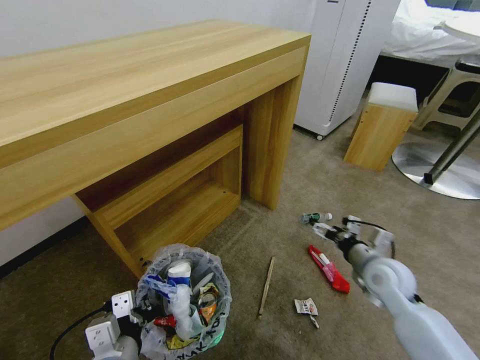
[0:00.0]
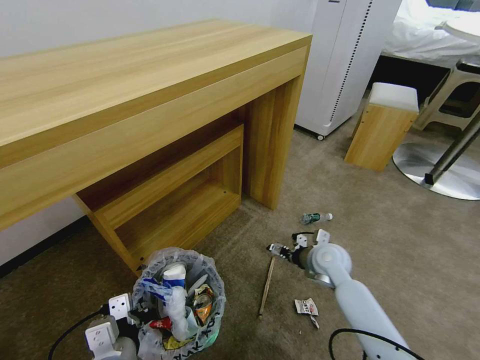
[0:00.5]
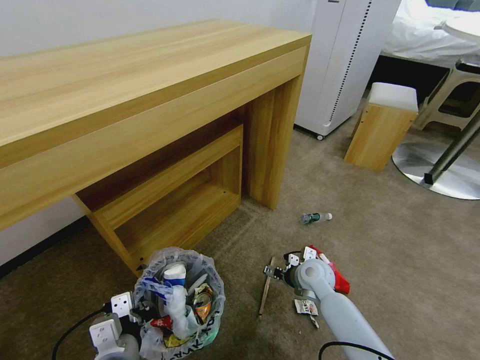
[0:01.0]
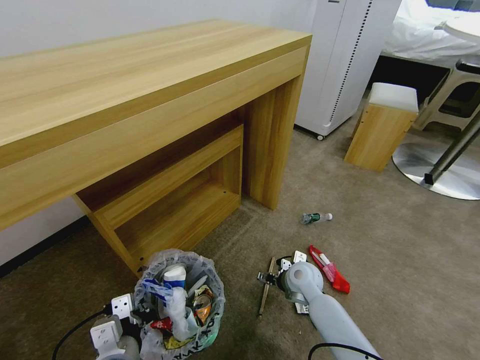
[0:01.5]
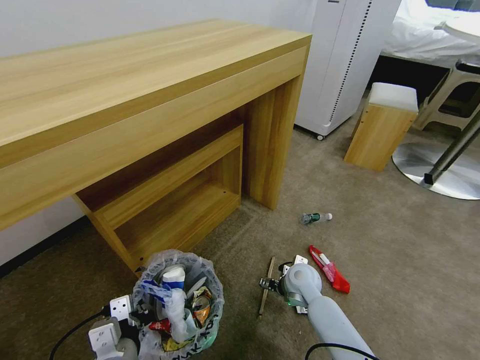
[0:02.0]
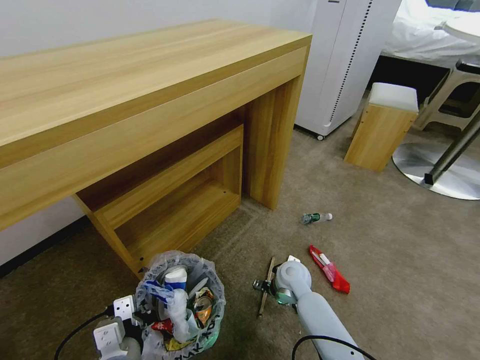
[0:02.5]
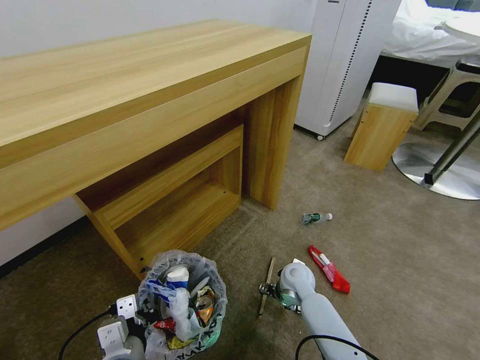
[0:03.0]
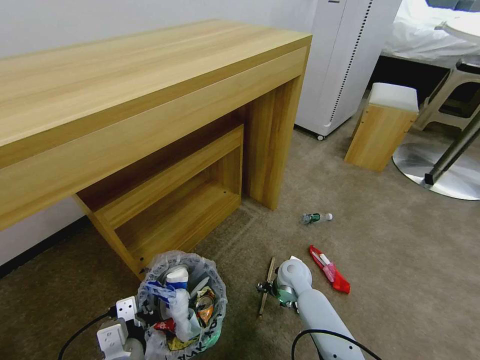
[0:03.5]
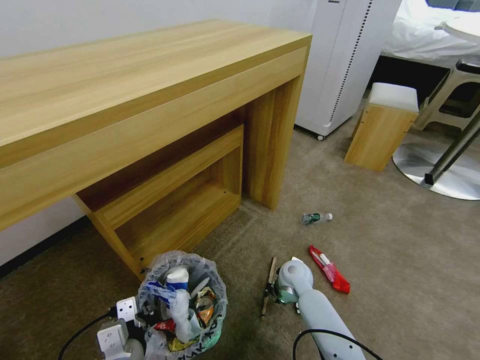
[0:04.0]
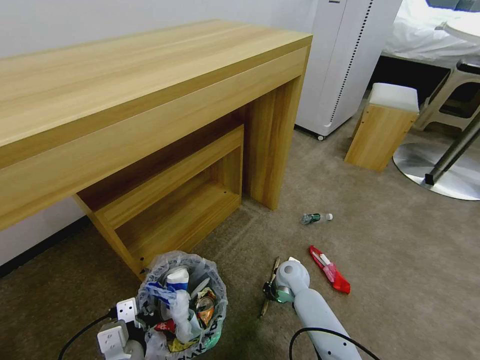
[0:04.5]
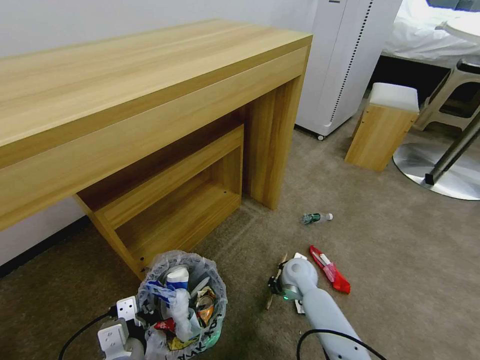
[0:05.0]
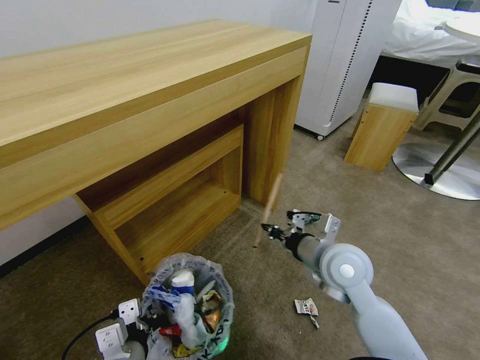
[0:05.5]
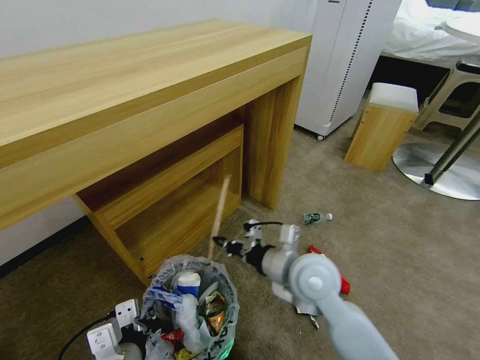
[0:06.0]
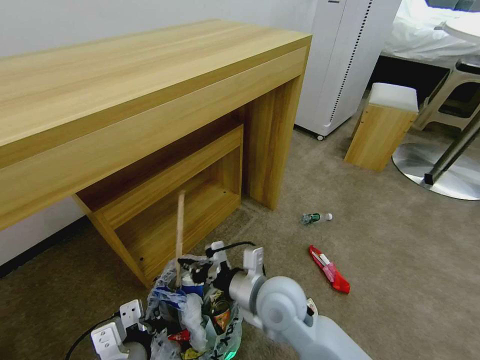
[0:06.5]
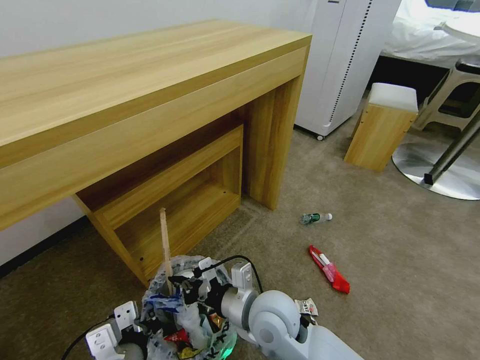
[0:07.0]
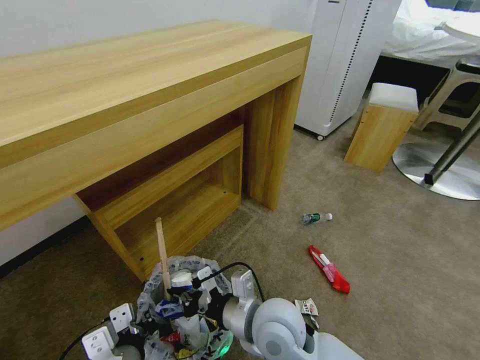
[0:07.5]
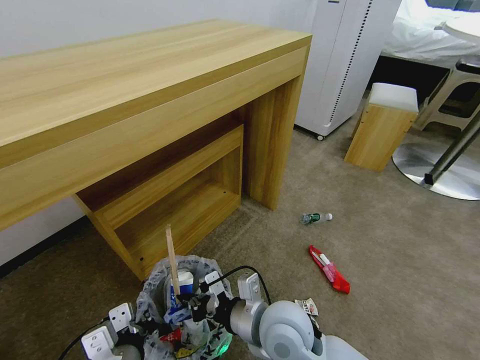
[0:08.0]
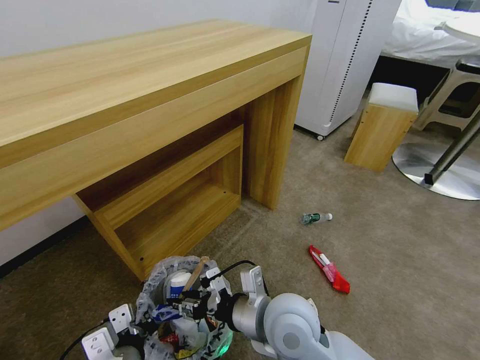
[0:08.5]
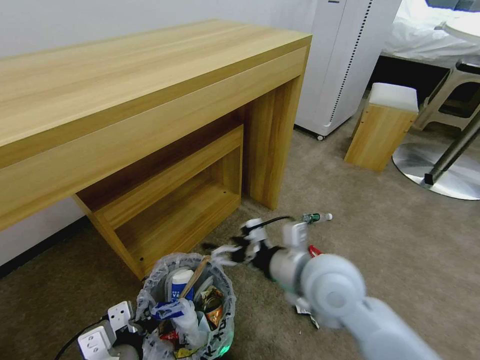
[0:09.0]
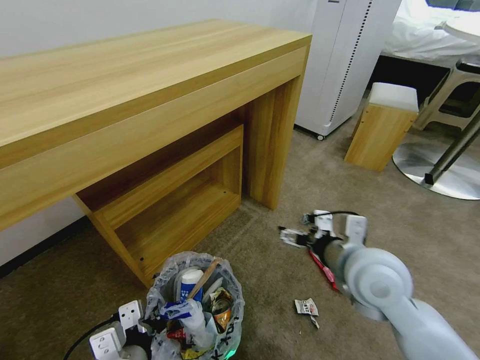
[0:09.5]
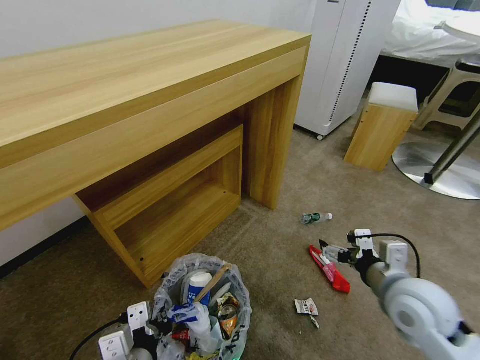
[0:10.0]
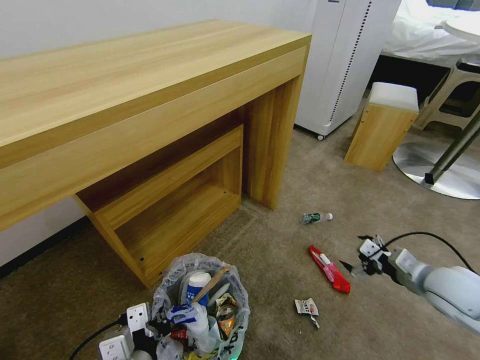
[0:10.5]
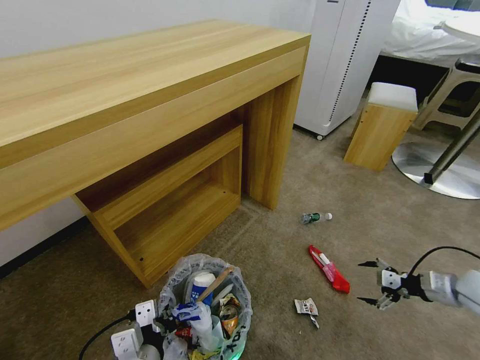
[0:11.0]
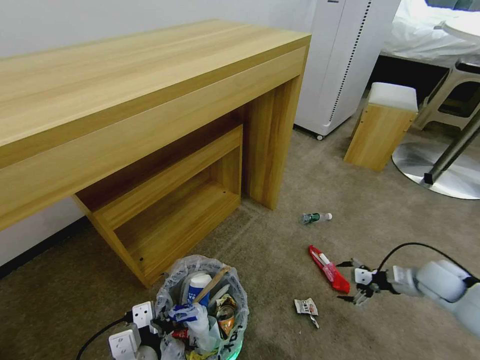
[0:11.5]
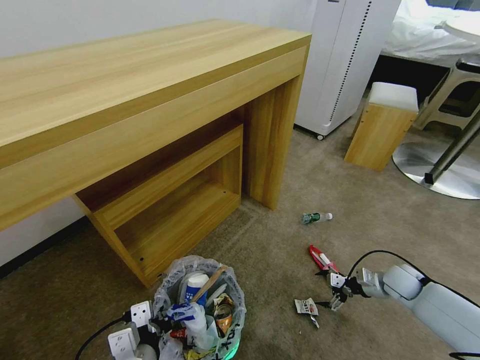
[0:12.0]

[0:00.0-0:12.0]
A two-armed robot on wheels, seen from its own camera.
Task of the whole recording: Pick up the trash bin and place the garbage on the floor into it.
0:00.0 to 0:02.0: The right gripper moves to the left and downward, about 20 cm.
0:02.0 to 0:04.0: The right gripper closes up.
0:04.0 to 0:06.0: The right gripper travels upward and backward by approximately 20 cm.
0:06.0 to 0:08.0: The right gripper shifts some 10 cm backward and to the left.
0:08.0 to 0:10.0: The right gripper is displaced to the right by roughly 25 cm, and opens its fingers.
0:10.0 to 0:12.0: The right gripper heads downward, to the right and forward, covering some 30 cm.

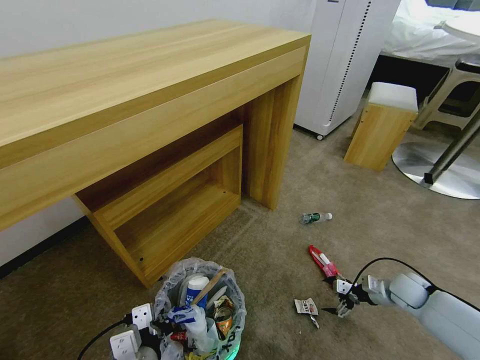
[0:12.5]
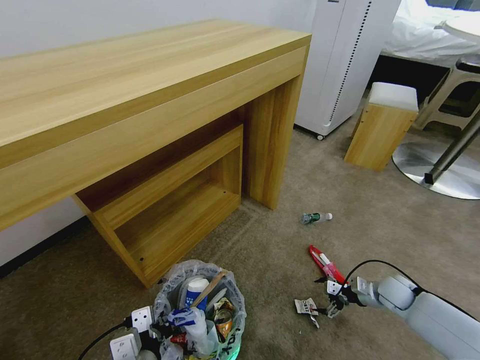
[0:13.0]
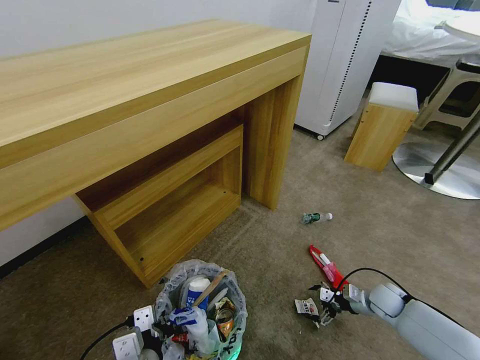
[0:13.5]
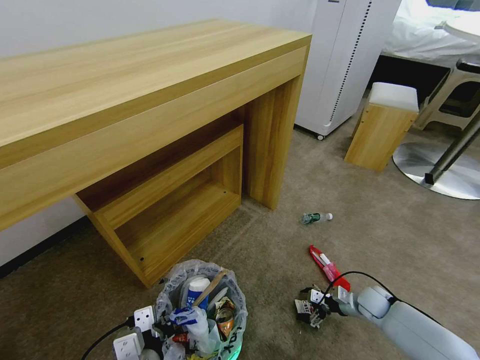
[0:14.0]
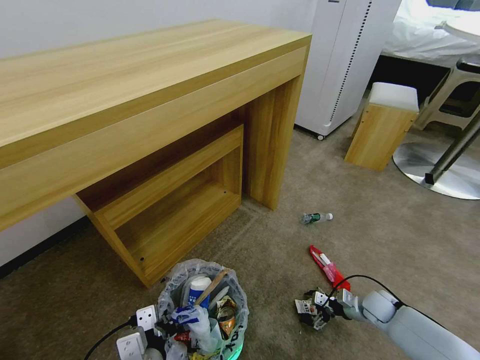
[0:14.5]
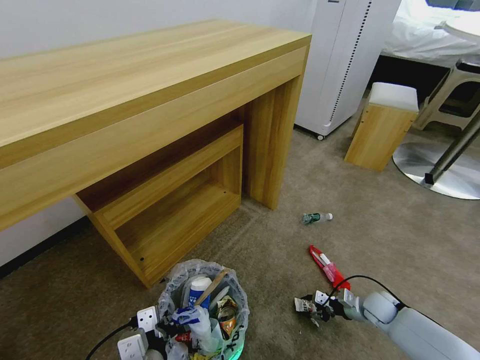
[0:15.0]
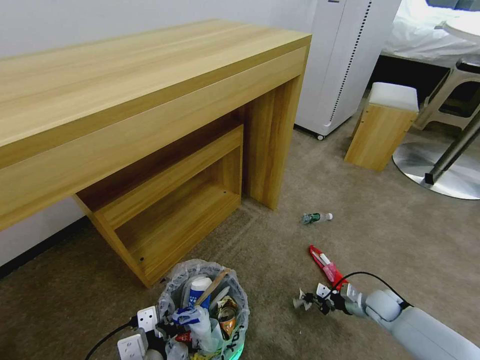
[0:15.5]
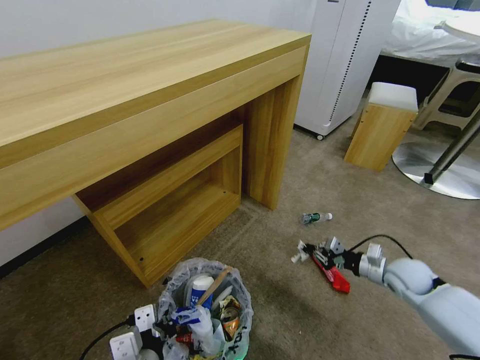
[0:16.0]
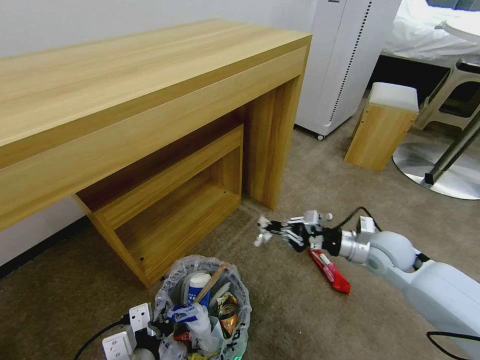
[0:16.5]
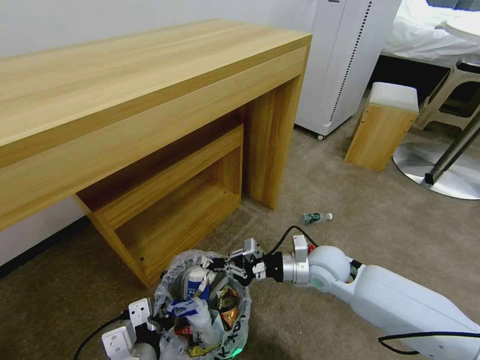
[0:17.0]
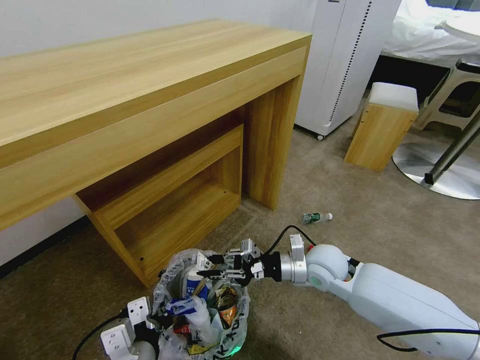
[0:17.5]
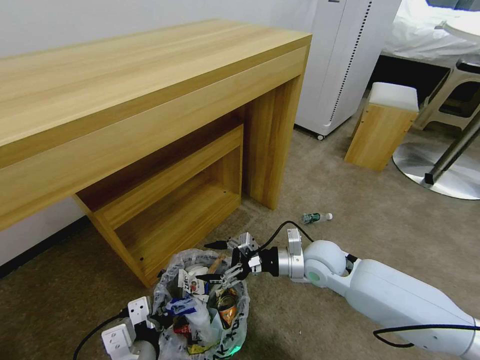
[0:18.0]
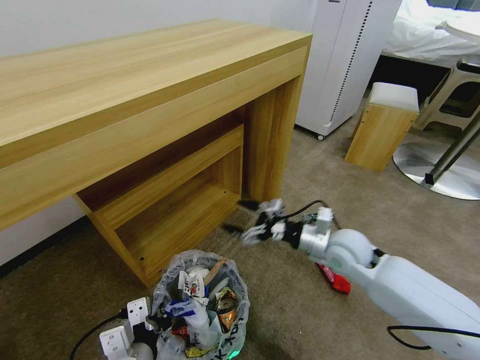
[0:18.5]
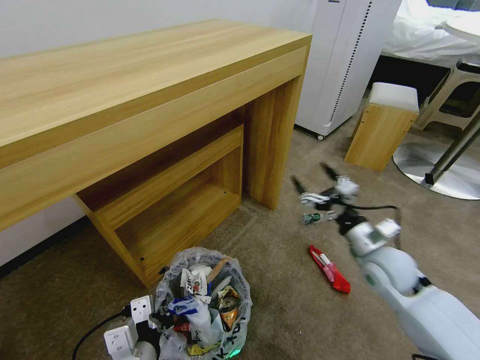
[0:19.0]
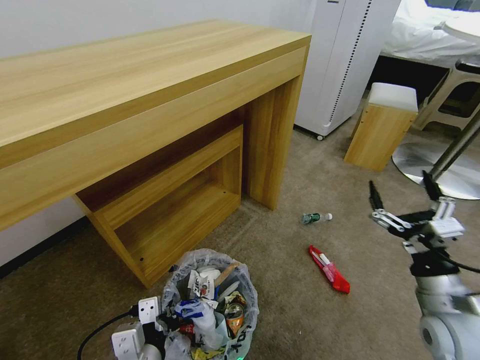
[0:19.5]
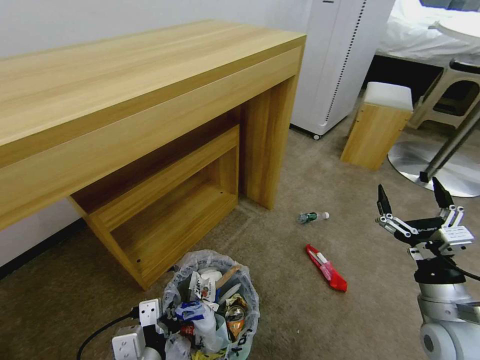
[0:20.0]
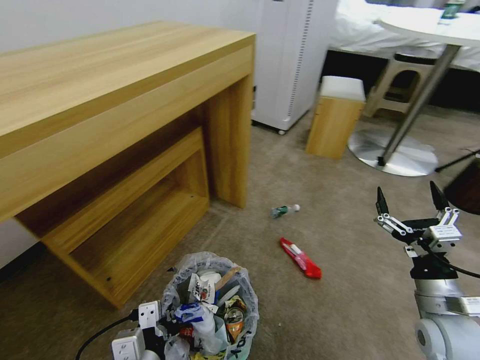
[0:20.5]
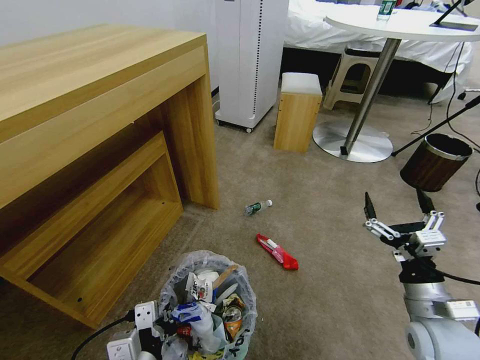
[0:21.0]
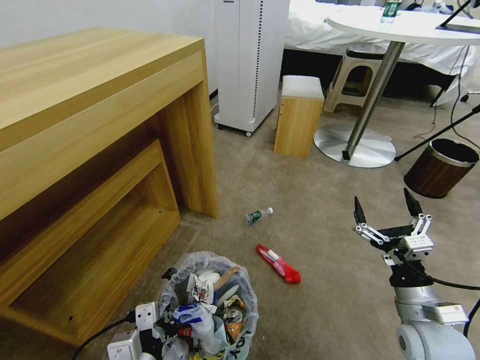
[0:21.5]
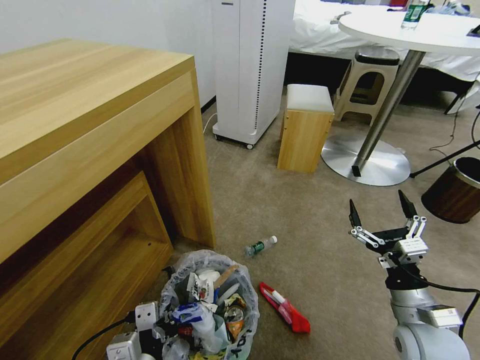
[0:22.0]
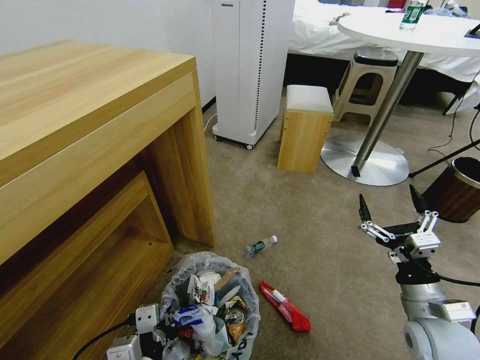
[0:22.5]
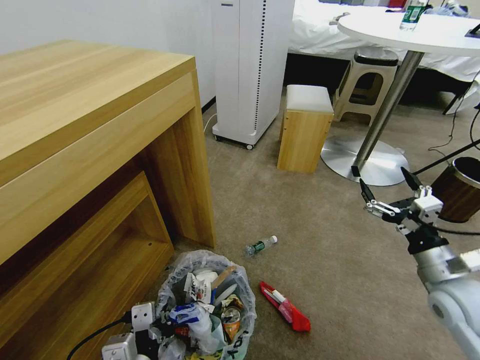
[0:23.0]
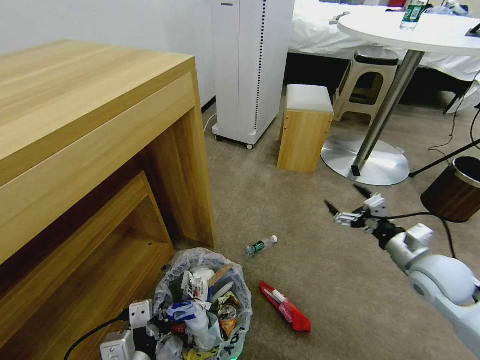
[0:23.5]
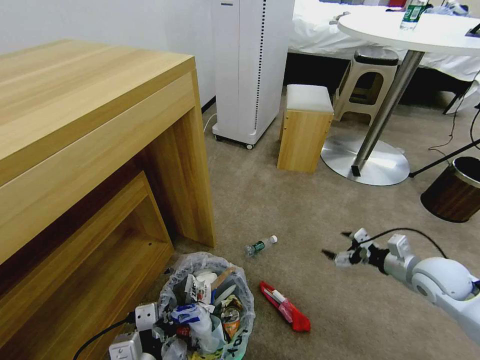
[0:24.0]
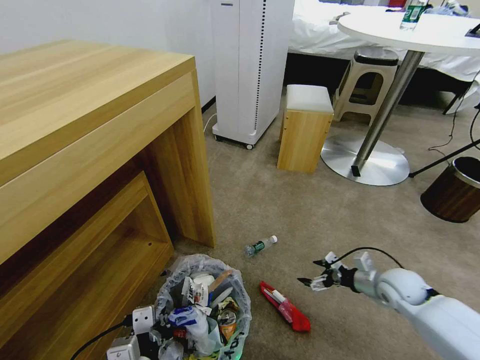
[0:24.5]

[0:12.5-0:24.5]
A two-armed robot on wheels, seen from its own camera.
Task of the whole recording: Pick up the trash bin and place the garbage on the floor into it.
0:12.5 to 0:14.5: The right gripper heads downward and to the left, covering approximately 10 cm.
0:14.5 to 0:16.5: The right gripper moves upward, about 25 cm, and closes up.
0:16.5 to 0:18.5: The right gripper travels to the left by about 10 cm, and opens.
0:18.5 to 0:20.5: The right gripper is displaced backward and to the right by some 20 cm.
0:22.5 to 0:24.5: The right gripper shifts approximately 15 cm forward and downward.

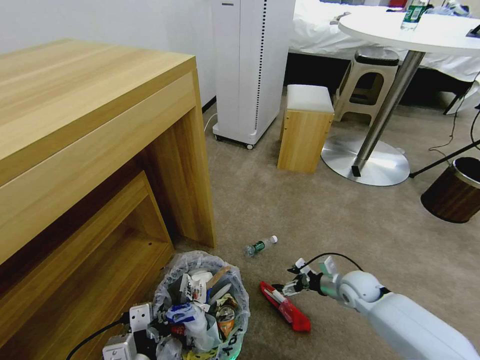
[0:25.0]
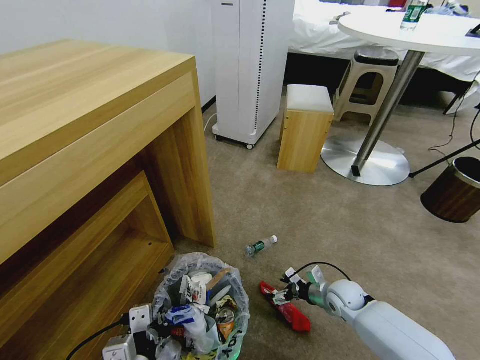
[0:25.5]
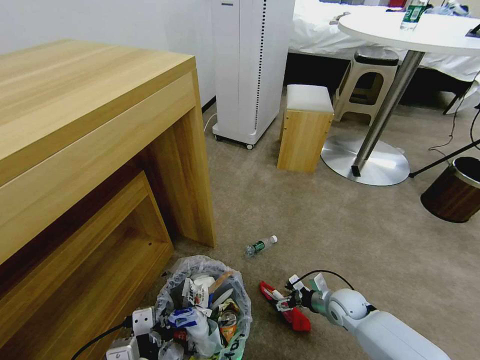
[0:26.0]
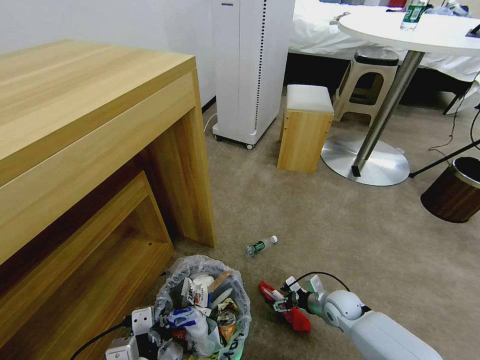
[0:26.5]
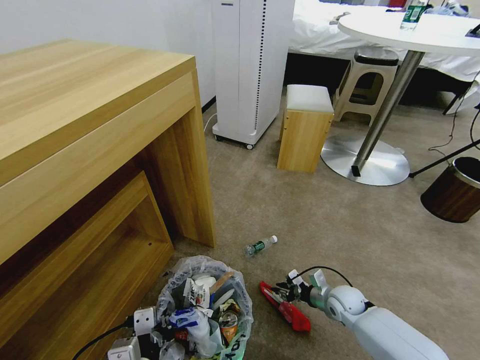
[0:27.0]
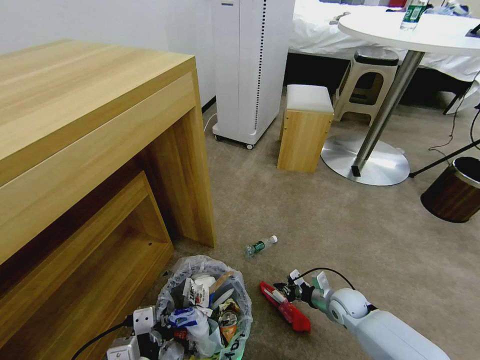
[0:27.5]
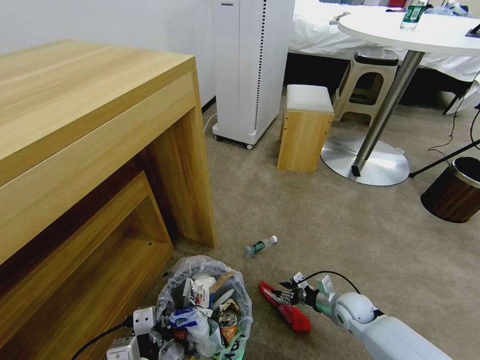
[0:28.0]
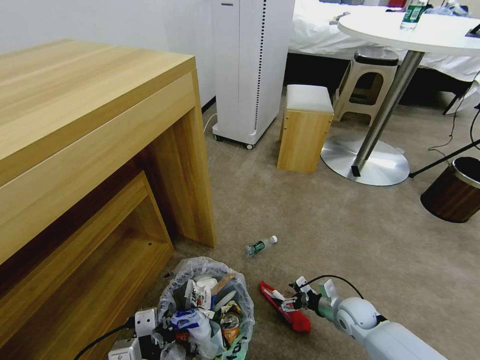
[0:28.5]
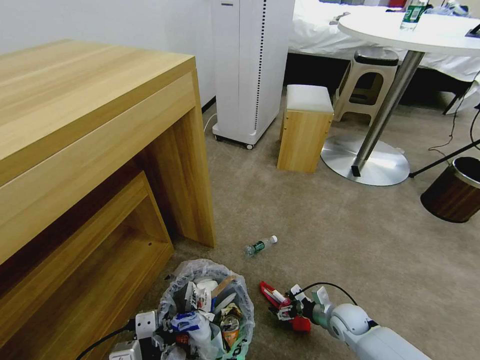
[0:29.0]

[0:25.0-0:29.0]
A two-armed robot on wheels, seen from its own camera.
Task of the whole recording: Pick up the trash bin and place the garbage on the floor into it.
0:25.0 to 0:27.0: The right gripper is displaced downward by some 5 cm, and closes.
0:27.0 to 0:29.0: The right gripper opens up.
